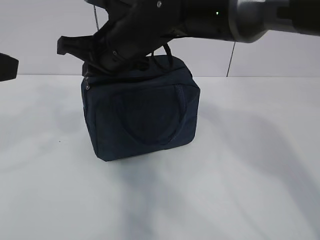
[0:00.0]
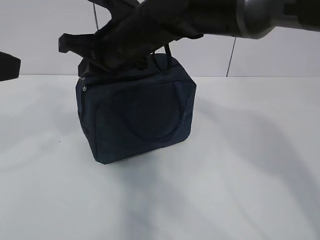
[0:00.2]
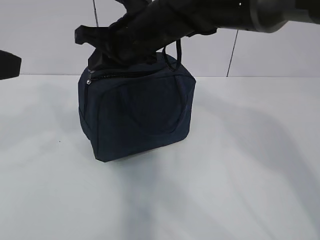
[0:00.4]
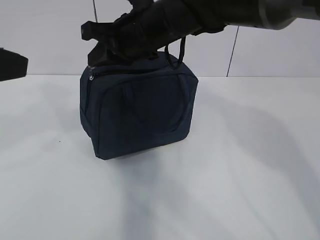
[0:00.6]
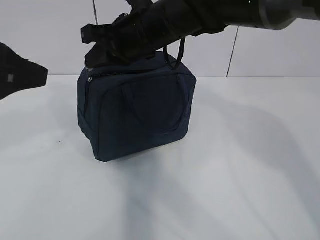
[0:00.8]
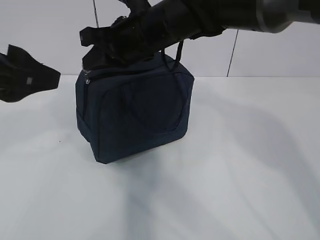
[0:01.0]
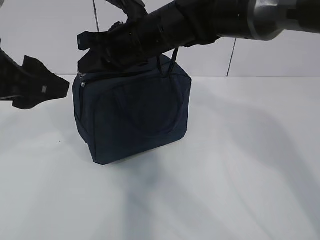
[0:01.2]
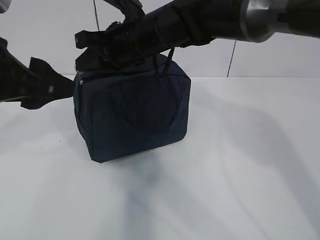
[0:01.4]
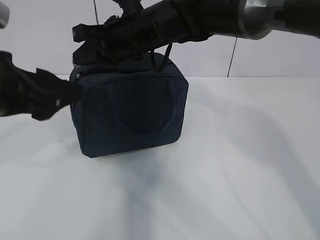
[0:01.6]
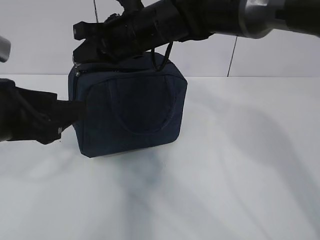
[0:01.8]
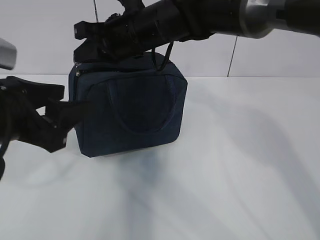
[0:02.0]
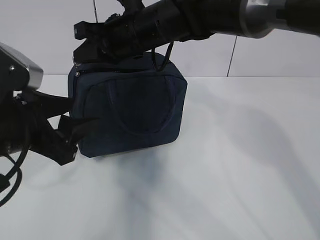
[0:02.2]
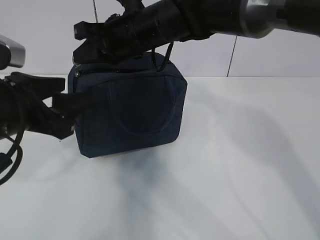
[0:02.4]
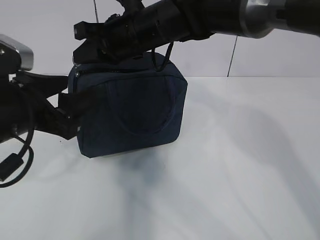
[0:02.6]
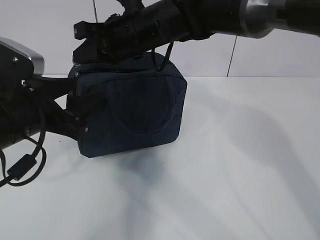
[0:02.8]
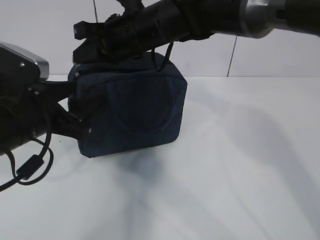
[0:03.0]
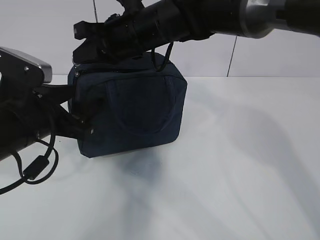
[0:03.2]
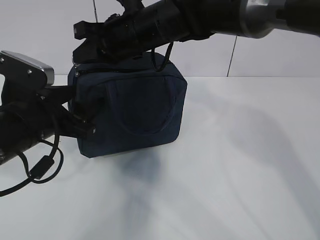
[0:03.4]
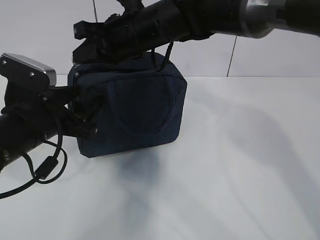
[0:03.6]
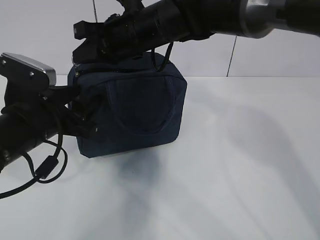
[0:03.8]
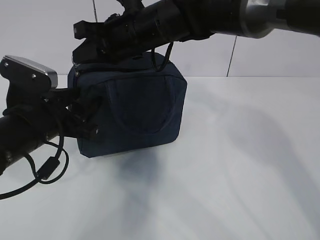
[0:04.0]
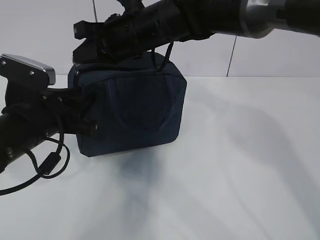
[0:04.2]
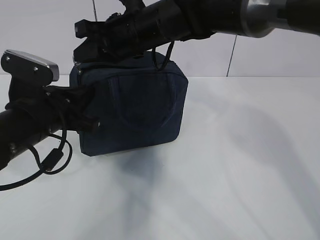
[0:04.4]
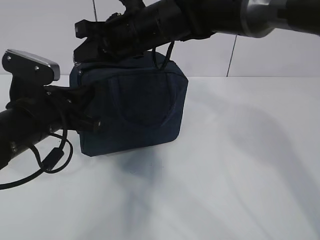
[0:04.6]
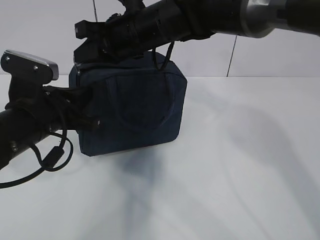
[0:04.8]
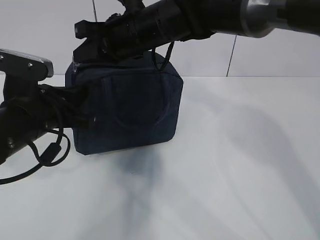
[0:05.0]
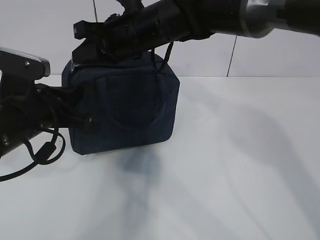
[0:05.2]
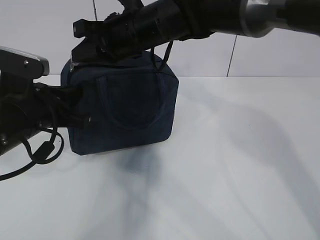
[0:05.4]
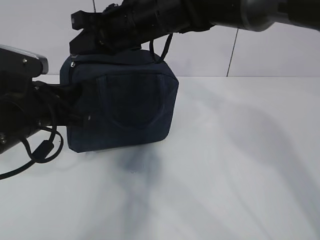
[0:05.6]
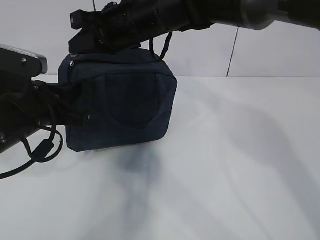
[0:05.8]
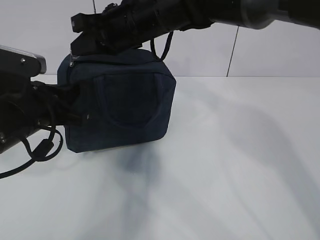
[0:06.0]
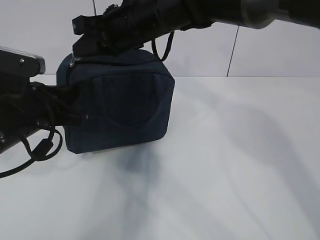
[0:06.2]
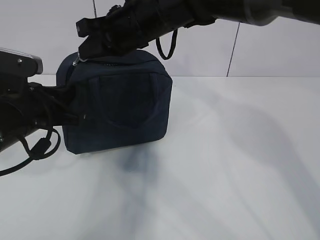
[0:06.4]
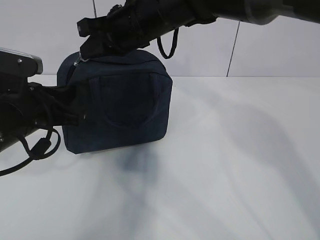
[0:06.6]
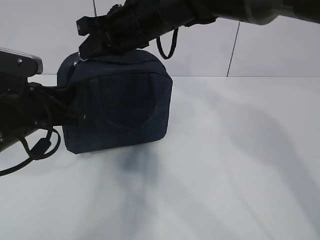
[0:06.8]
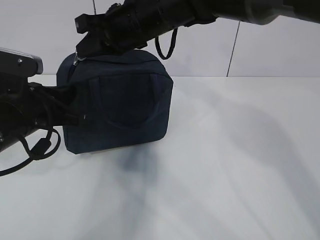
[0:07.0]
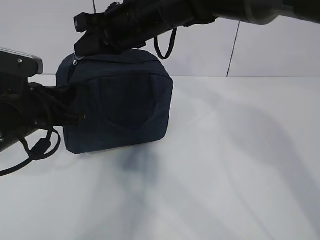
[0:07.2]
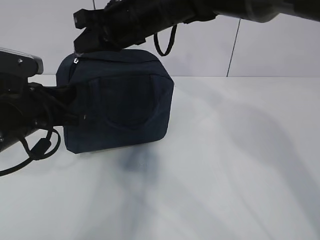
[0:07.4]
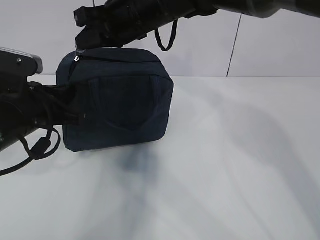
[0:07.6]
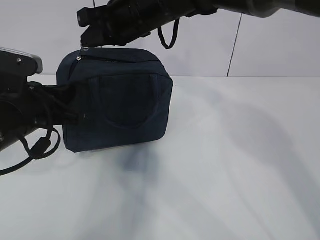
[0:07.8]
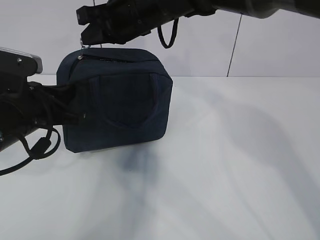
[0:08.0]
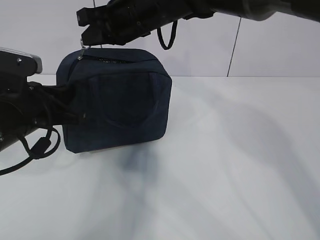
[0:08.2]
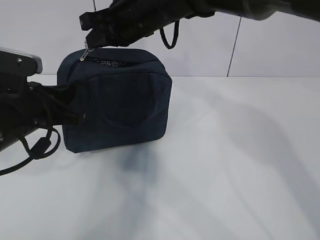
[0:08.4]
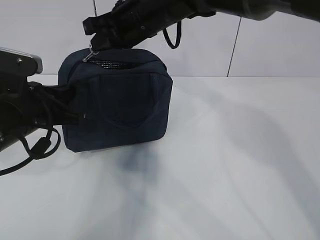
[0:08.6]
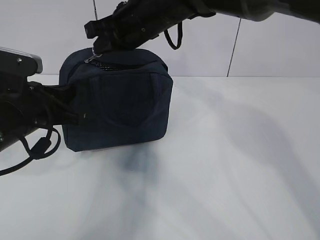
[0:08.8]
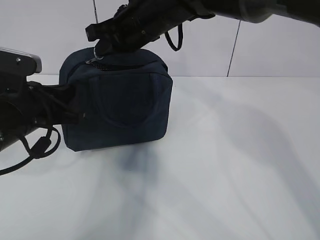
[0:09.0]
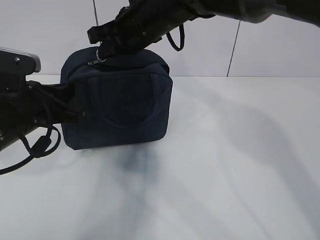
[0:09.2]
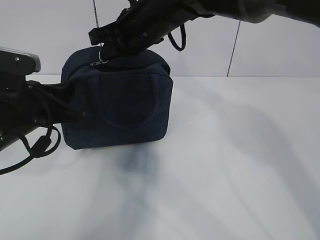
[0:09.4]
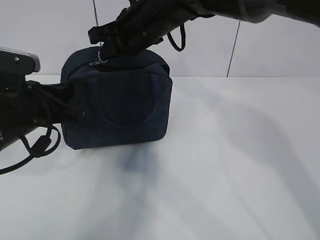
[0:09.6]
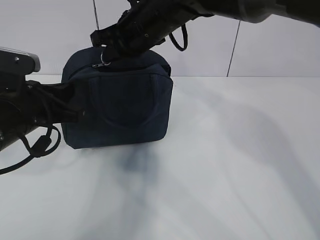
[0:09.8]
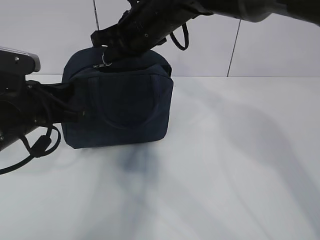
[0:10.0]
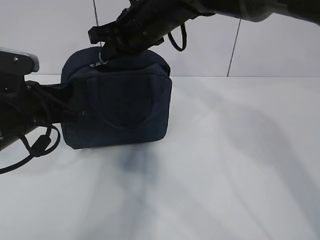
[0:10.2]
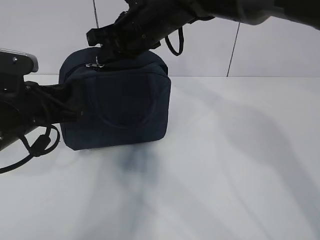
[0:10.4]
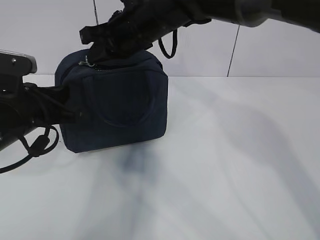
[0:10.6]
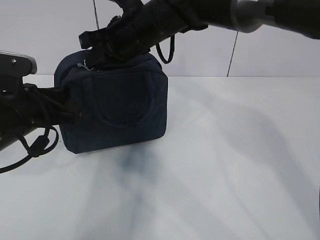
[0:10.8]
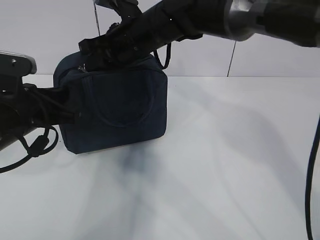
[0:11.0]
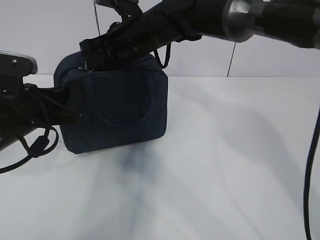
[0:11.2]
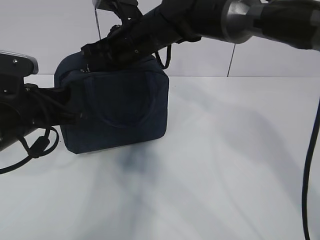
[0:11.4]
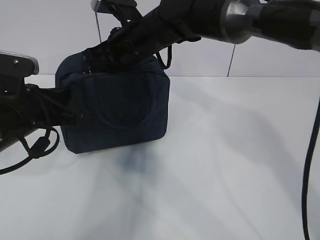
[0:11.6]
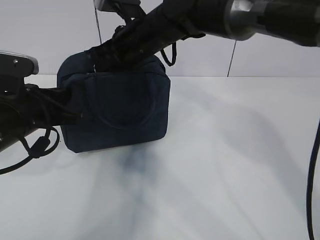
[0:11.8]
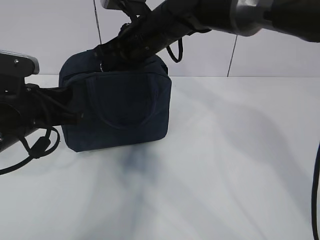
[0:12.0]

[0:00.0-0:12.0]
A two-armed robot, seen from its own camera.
0:00.0 to 0:01.6: The left gripper heads downward, covering roughly 5 cm.
0:01.6 to 0:03.0: The left gripper travels downward by roughly 10 cm.
0:03.0 to 0:04.4: The left gripper closes.
0:04.4 to 0:09.0: There are only small adjustments of the grippers.
0:09.0 to 0:12.0: There are only small adjustments of the grippers.

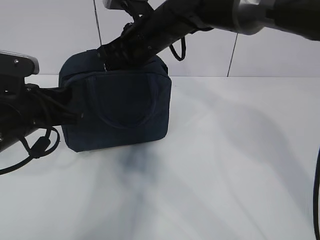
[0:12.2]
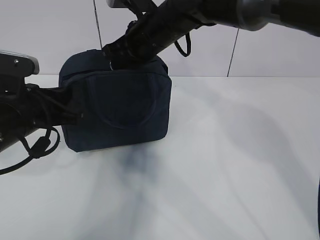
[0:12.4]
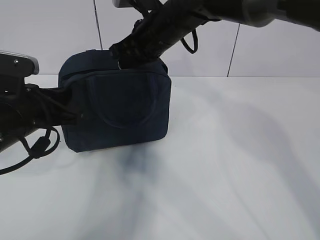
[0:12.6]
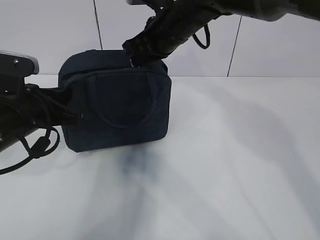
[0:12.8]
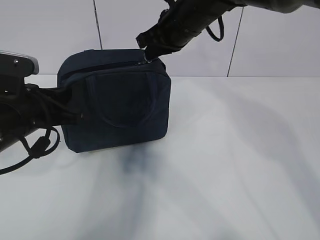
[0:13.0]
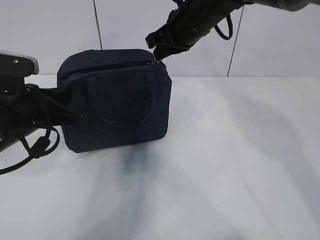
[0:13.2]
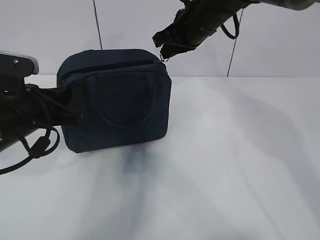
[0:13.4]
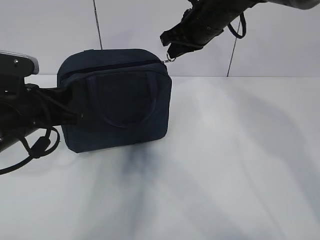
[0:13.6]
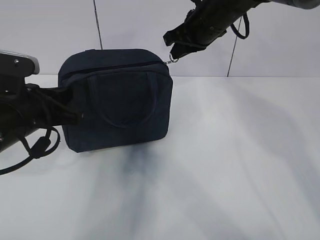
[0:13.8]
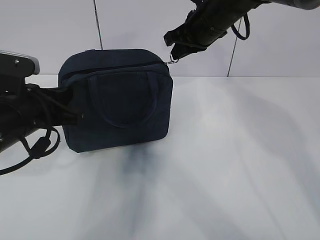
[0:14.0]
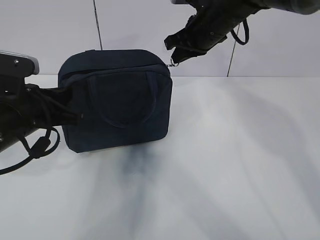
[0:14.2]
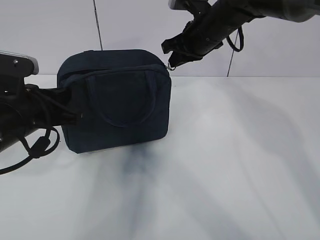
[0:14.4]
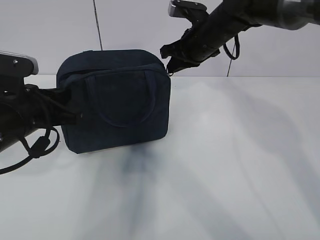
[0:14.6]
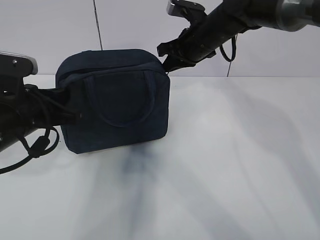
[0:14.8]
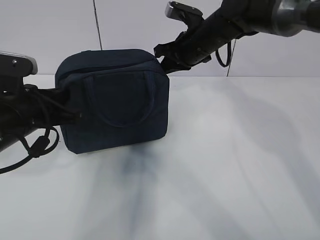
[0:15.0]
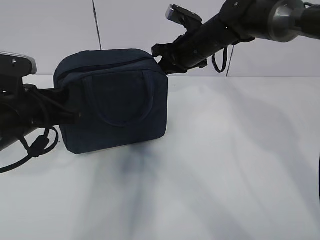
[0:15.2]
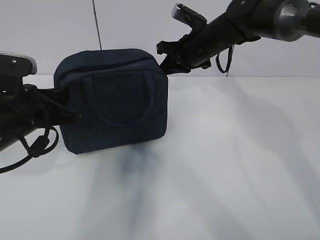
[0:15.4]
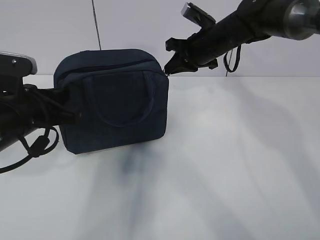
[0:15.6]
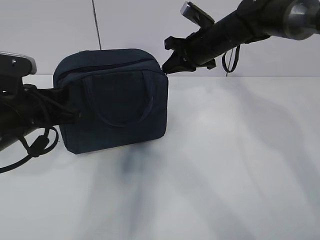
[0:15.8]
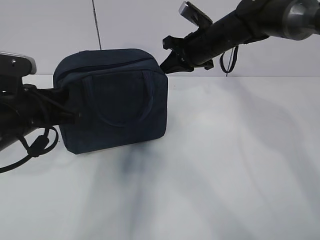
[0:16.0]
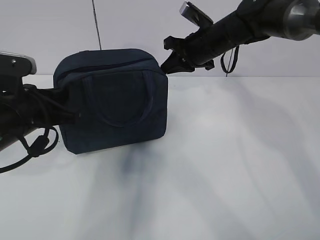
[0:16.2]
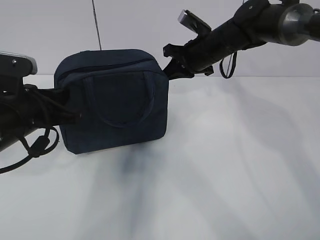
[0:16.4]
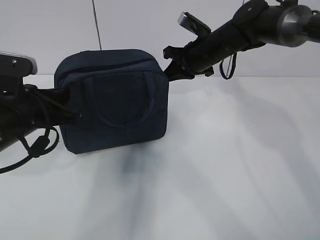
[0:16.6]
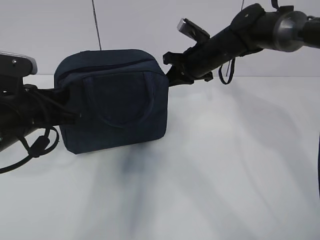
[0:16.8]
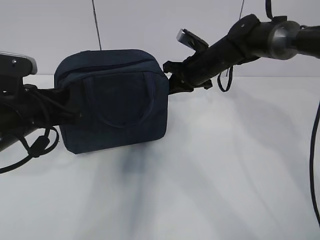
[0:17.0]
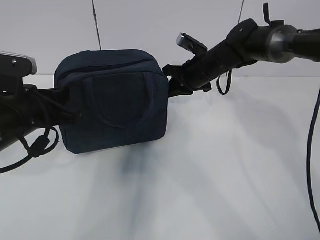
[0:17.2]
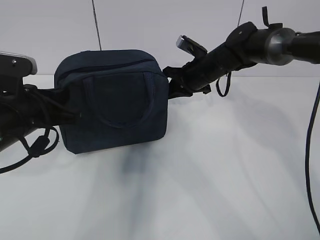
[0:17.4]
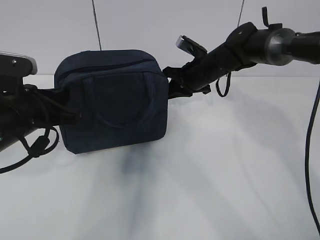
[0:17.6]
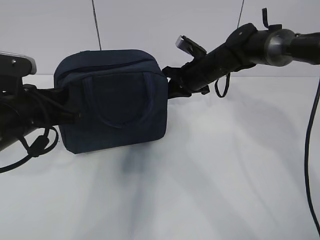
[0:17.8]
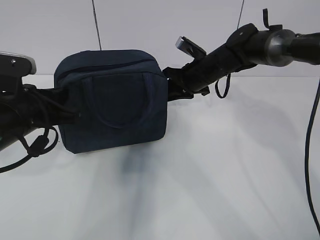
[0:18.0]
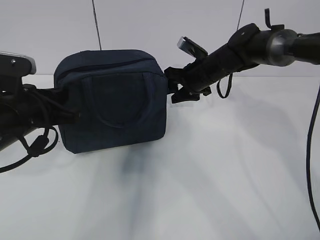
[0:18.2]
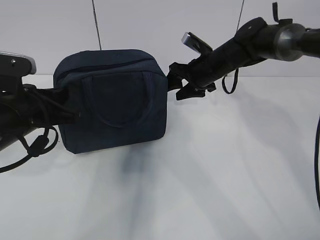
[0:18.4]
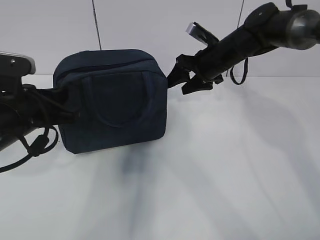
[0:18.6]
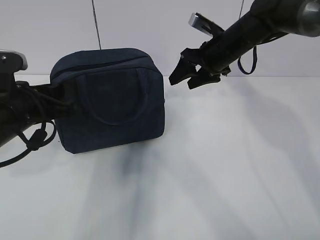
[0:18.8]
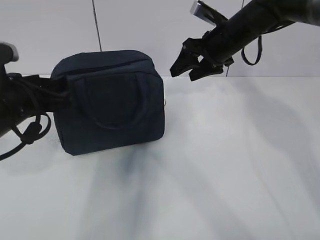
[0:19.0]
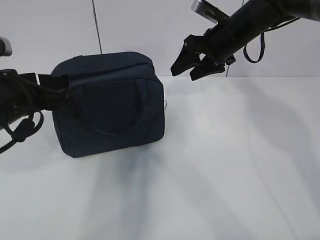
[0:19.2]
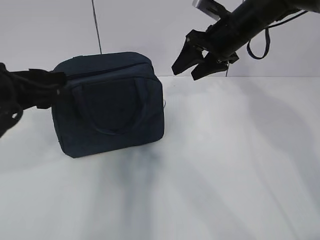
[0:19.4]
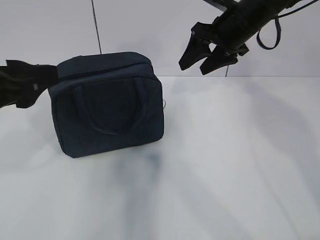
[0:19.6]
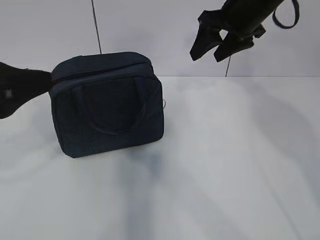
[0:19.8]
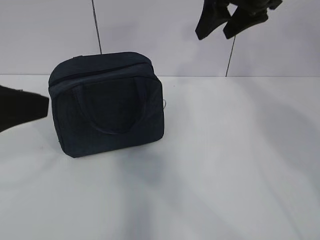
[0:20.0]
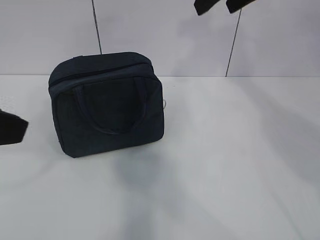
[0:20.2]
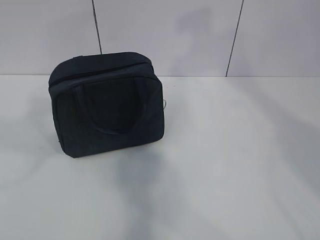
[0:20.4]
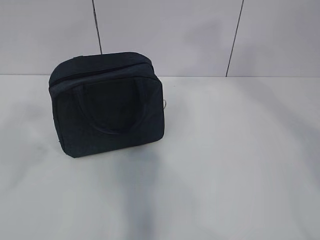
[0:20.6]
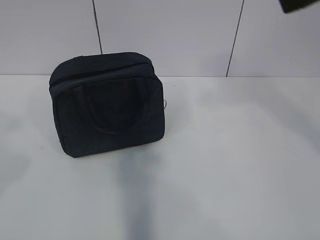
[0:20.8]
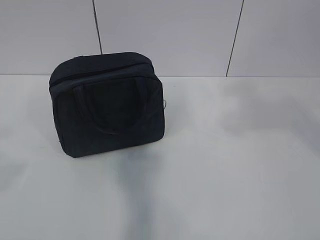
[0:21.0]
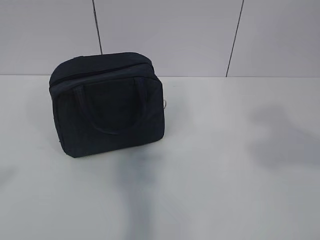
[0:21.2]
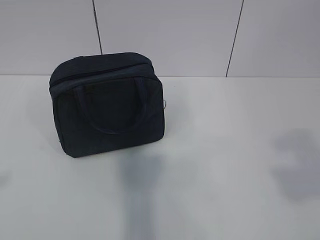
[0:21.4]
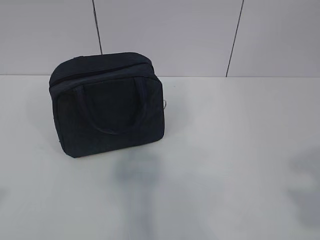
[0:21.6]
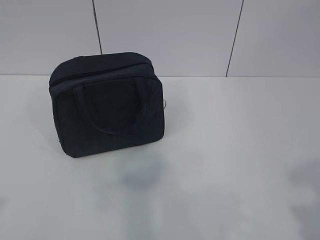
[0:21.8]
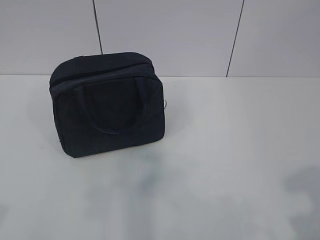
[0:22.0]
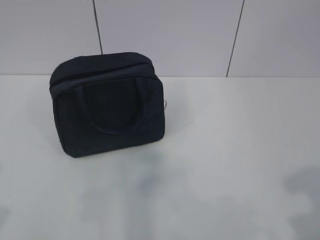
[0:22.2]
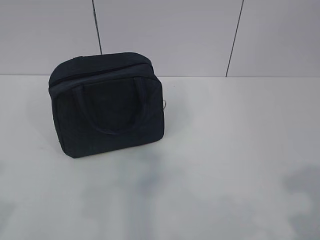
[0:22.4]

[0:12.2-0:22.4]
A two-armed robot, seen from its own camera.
Step, 0:12.2 to 0:20.0: zip up the zipper to close the bag.
0:12.2 to 0:13.6: The right gripper is displaced to the right by about 10 cm.
0:13.6 to 0:15.2: The right gripper shifts approximately 5 cm downward.
0:15.2 to 0:16.6: The grippers stay close to where they were, moving slightly.
0:16.6 to 0:18.0: The right gripper moves downward, some 5 cm.
0:18.0 to 0:19.4: The left gripper changes place by about 5 cm, and opens its fingers. Meanwhile the right gripper moves upward, roughly 10 cm, and opens its fingers.
0:19.4 to 0:21.0: The right gripper moves backward and upward, about 35 cm; the left gripper heads backward, upward and to the left, covering roughly 30 cm.
0:21.0 to 0:22.4: The left gripper shifts approximately 10 cm downward.
